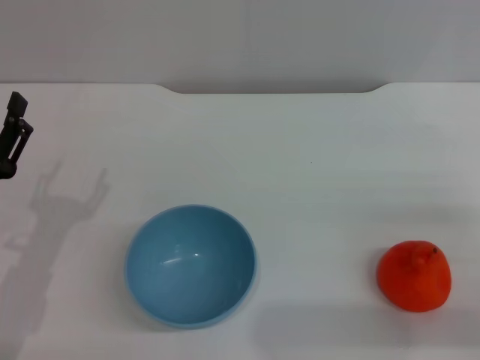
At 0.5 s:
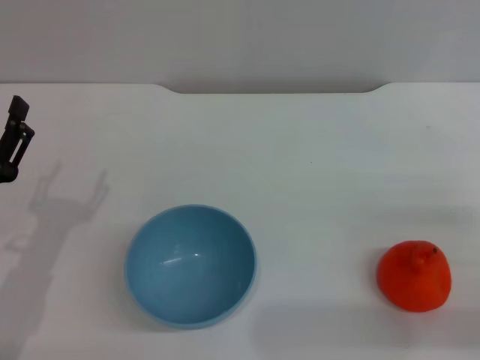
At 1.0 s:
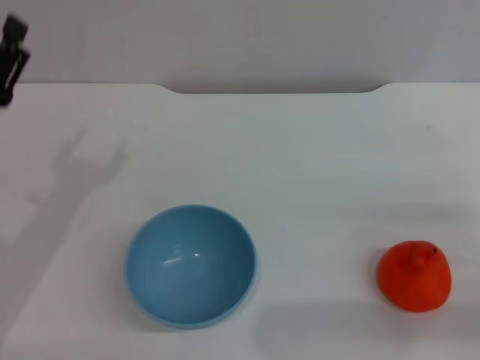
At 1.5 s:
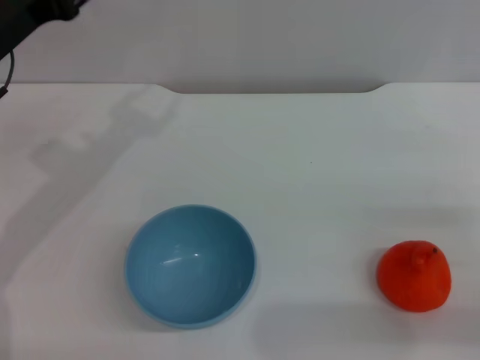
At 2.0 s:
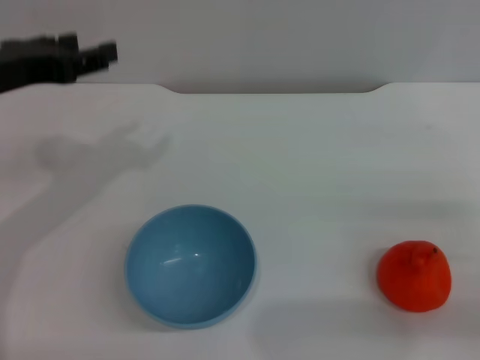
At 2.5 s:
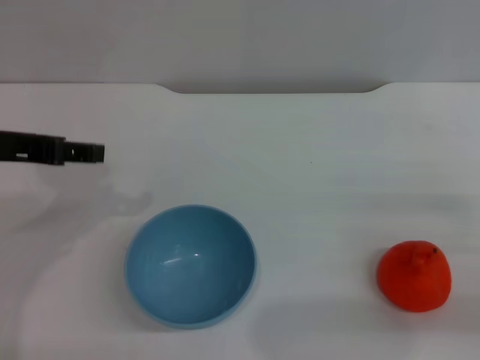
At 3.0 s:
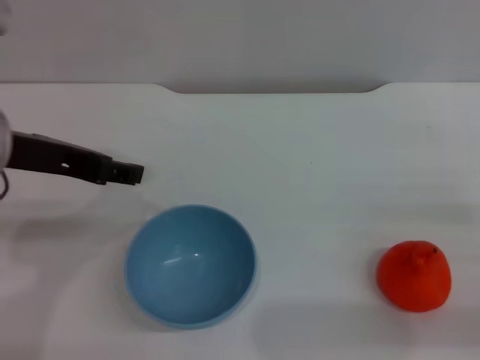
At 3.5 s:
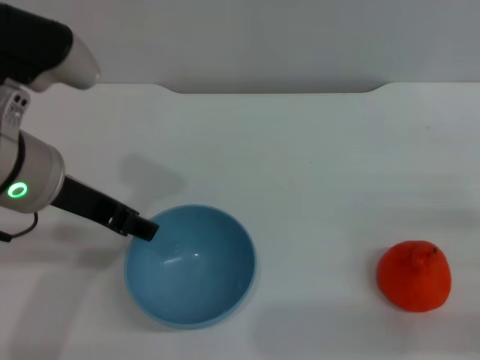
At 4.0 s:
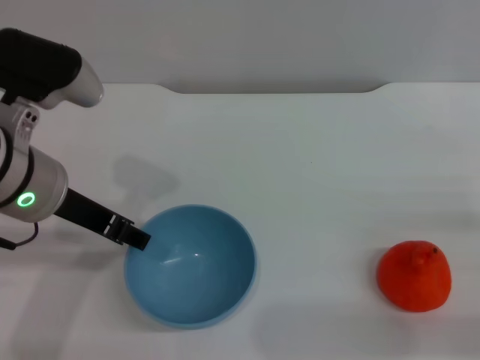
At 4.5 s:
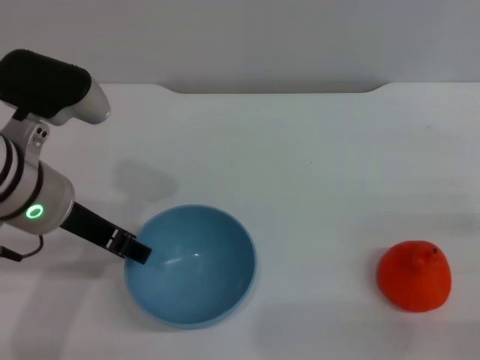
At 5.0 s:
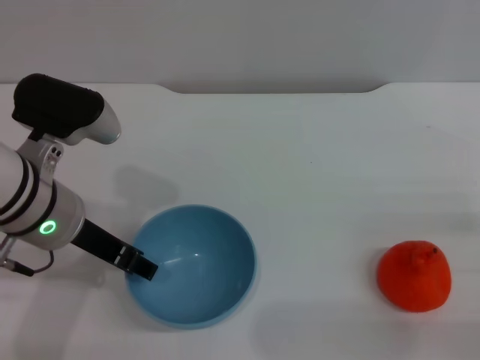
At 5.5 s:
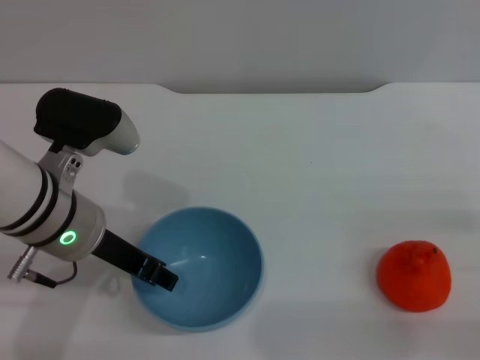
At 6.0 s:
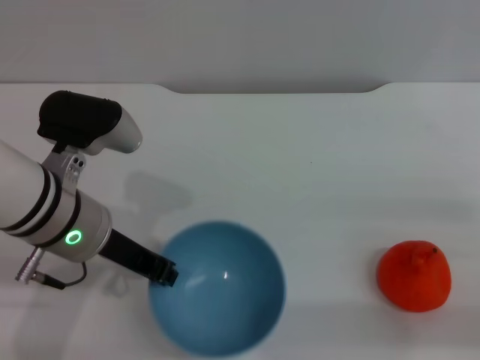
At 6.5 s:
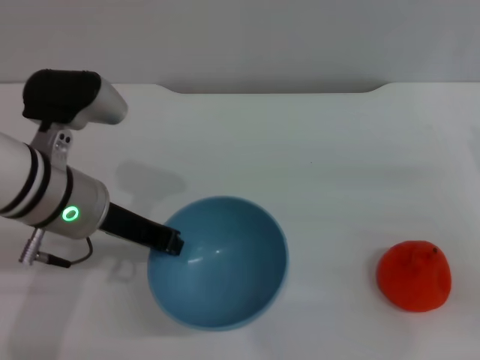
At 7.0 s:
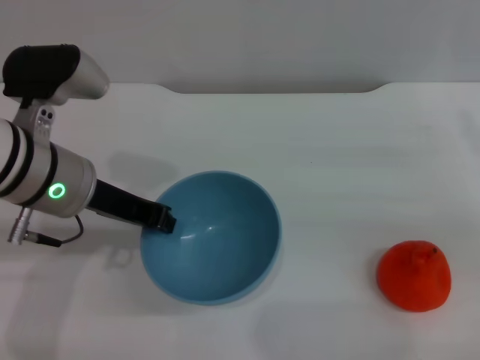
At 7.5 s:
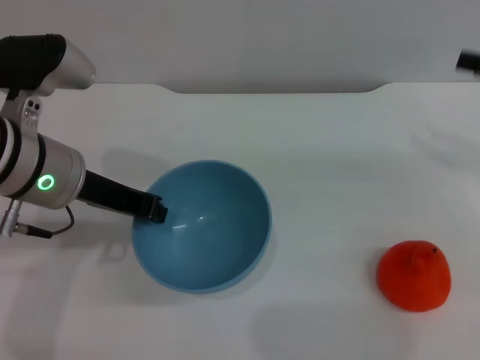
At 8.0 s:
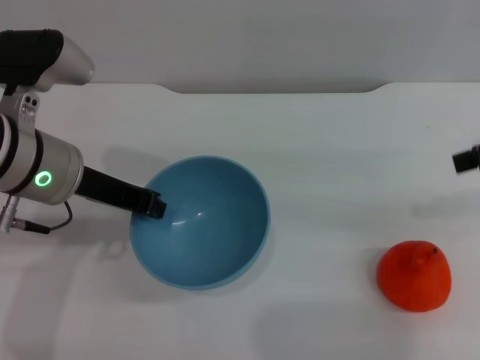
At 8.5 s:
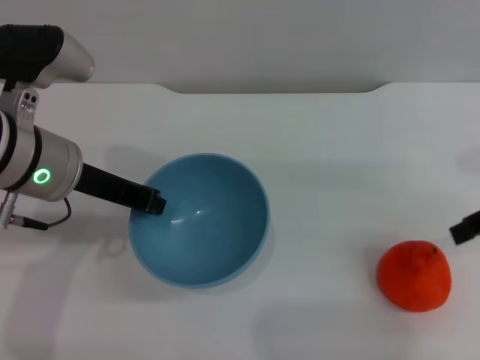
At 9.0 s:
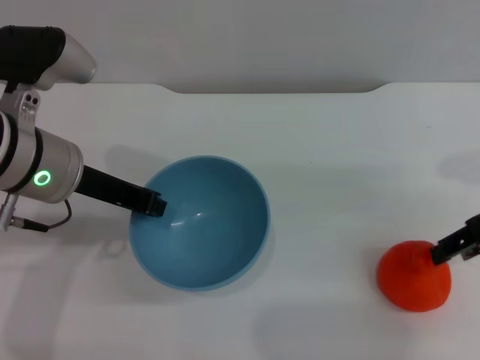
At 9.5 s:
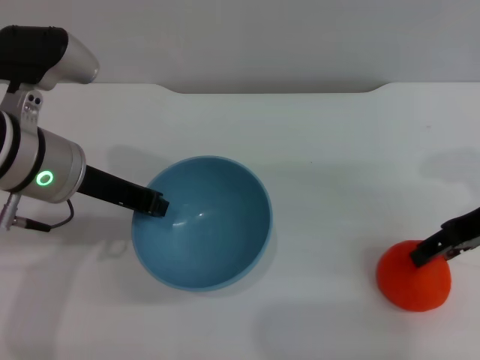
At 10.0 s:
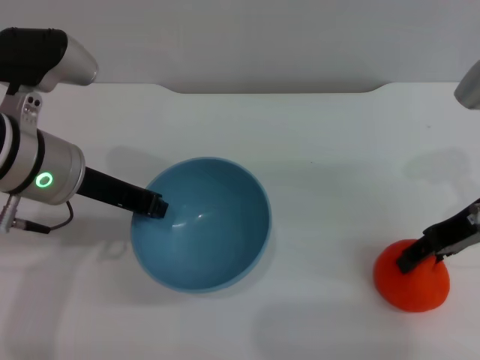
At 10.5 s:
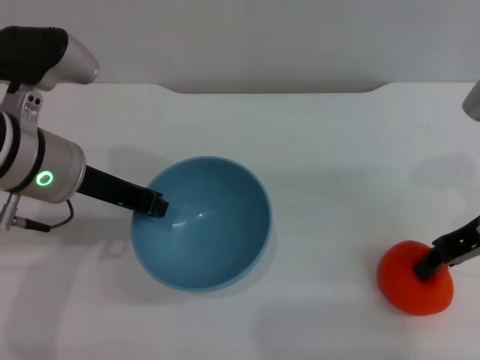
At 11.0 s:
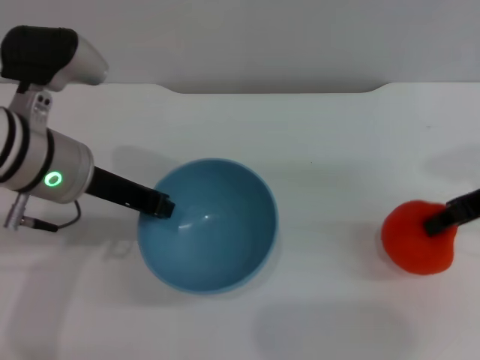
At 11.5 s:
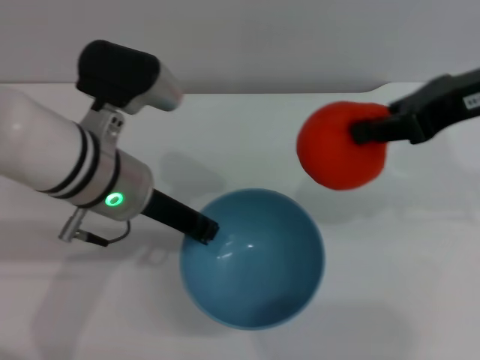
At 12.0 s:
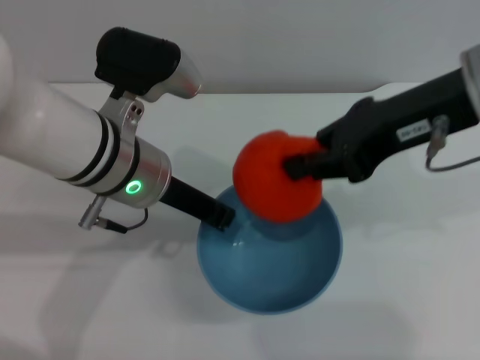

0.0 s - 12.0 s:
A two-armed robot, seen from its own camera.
Task of the whole recording: put the orange into the blue bowl and pour it out repeatedly.
Step, 0.0 s - 6.5 s: Pick up the bowl with the left gripper.
Step, 7.0 s - 11.0 s: Pick up the orange with the right gripper.
0.0 s - 2.0 s: The left gripper travels upward and forward by about 20 cm.
2.0 s - 4.0 s: The left gripper moves to the right, some 10 cm.
4.0 s - 6.0 s: The left gripper shifts by approximately 5 cm, and closes.
6.0 s - 8.0 s: The right gripper goes roughly 20 cm upward and forward.
8.0 s - 10.0 s: The right gripper goes roughly 10 cm downward and to the left.
10.0 s - 12.0 s: The left gripper is displaced to the right by approximately 5 cm, while the right gripper heads upward and to the left, covering approximately 15 cm, and closes its fingers.

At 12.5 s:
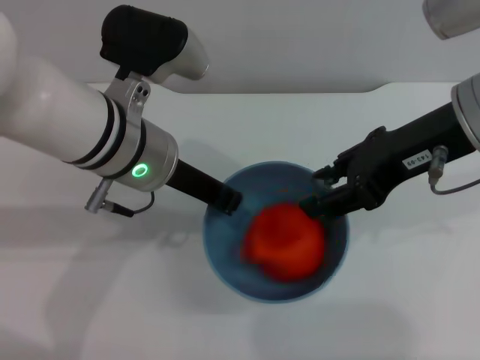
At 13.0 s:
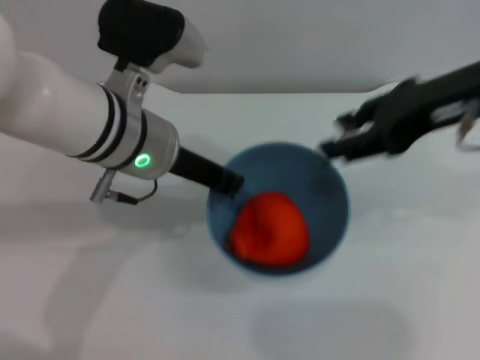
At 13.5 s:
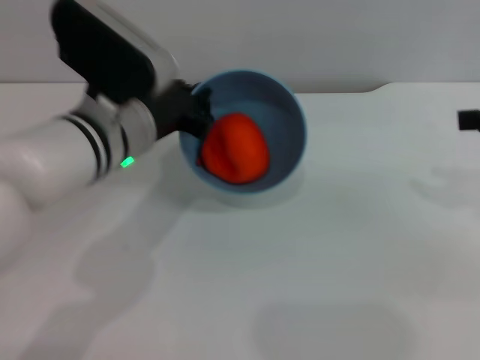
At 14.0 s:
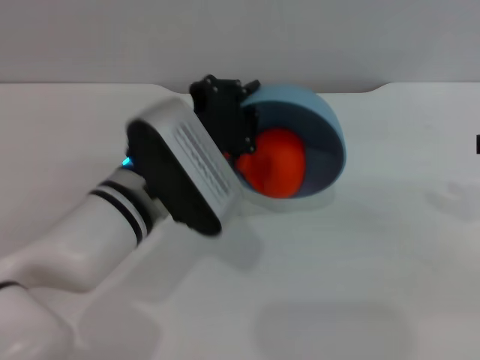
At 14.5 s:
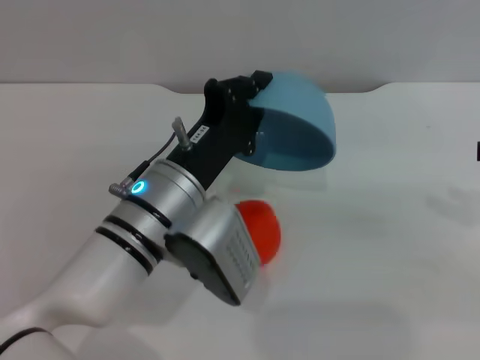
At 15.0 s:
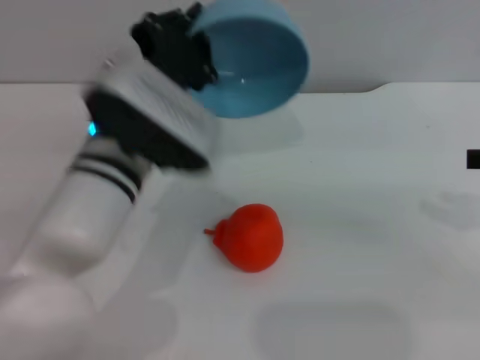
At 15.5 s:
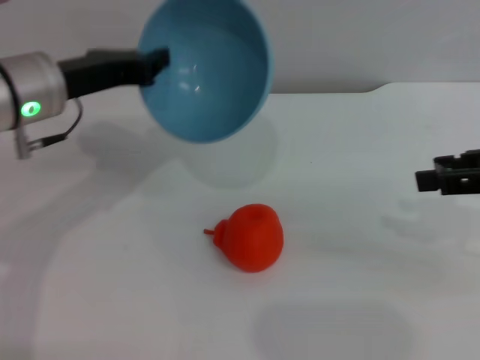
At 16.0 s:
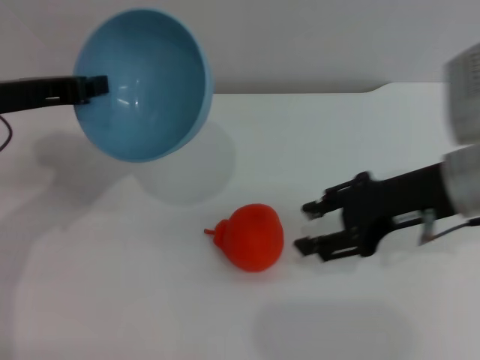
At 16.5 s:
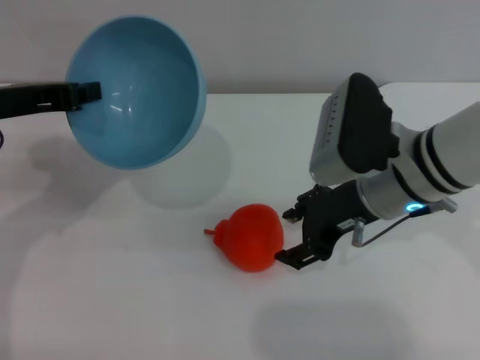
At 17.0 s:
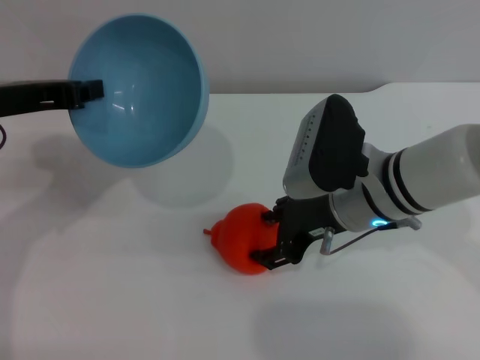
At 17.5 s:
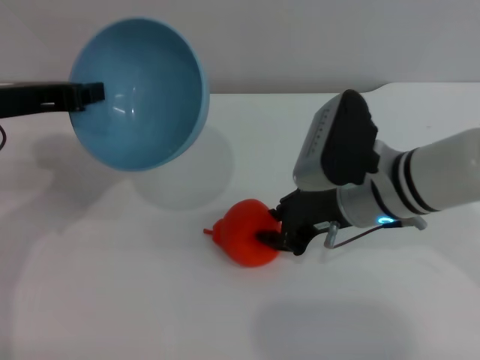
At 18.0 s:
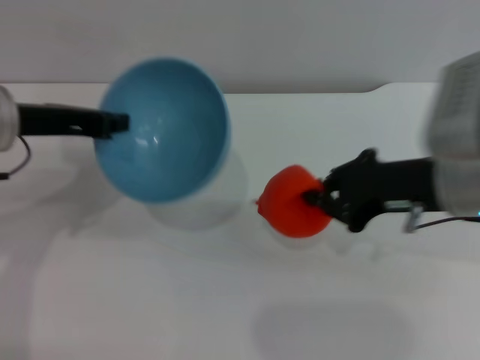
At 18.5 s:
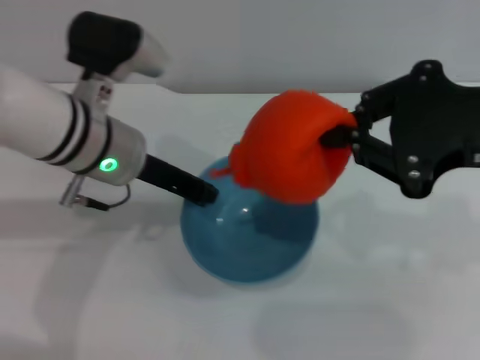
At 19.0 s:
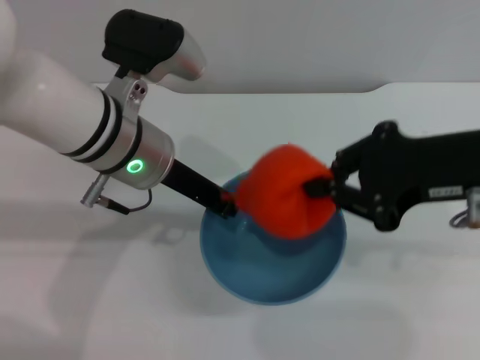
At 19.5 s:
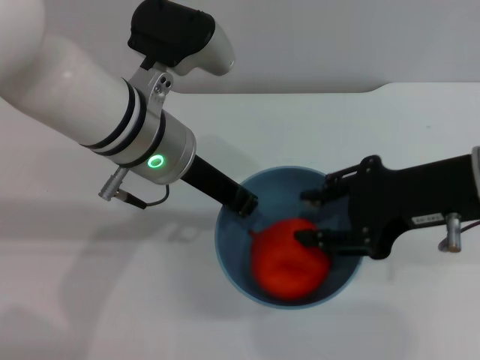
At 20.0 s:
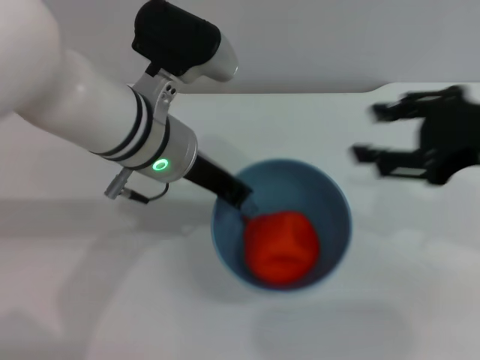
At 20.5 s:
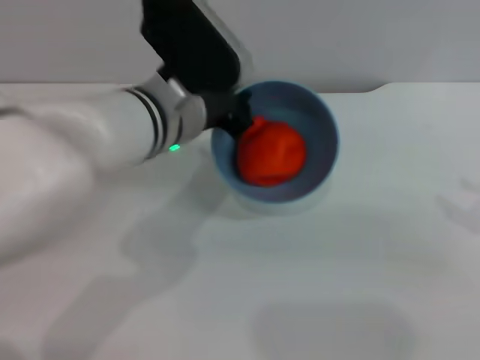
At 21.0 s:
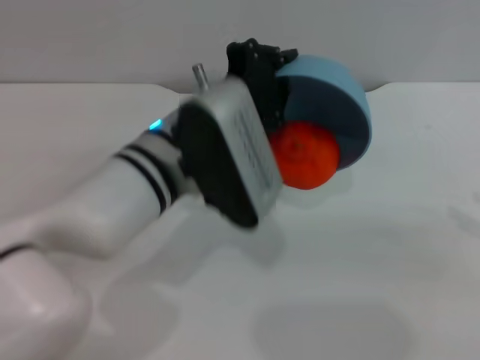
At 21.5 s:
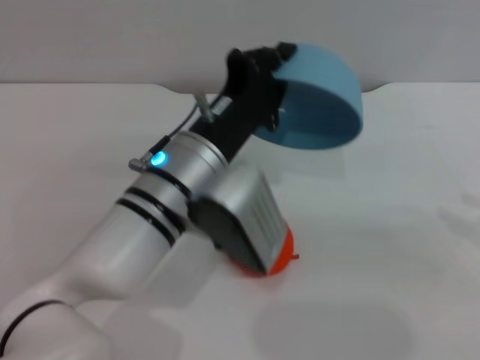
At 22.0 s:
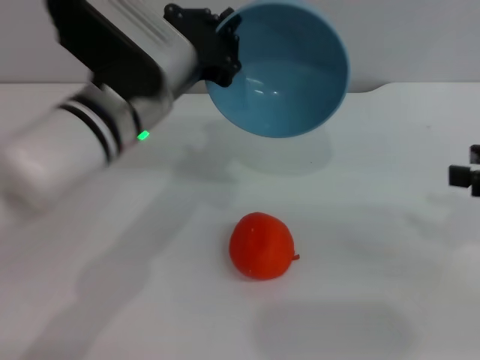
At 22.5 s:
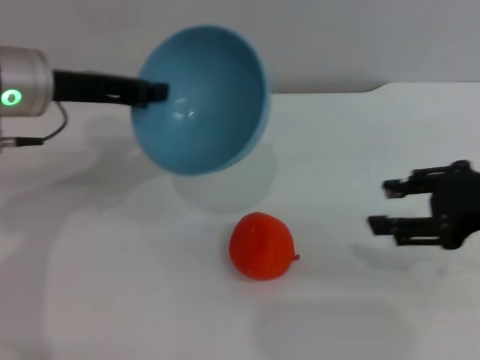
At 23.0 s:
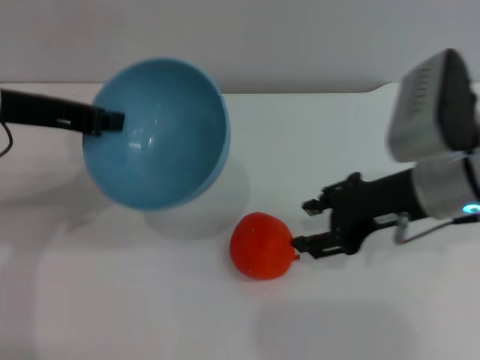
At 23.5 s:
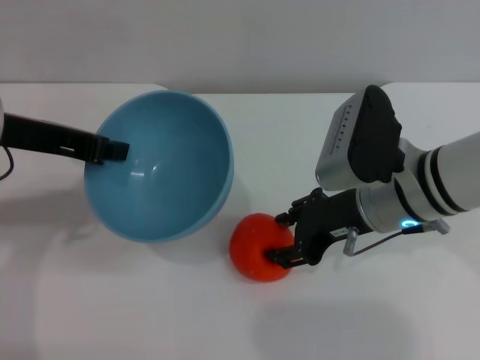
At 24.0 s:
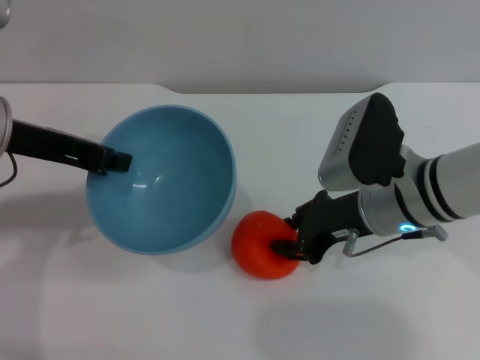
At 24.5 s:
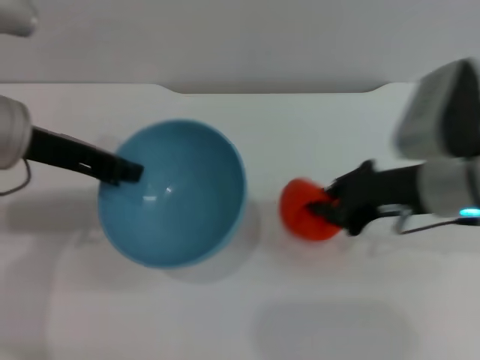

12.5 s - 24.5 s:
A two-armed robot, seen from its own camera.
Task of the whole recording: put the orange into the blue bowl and pour it out repeatedly.
Step, 13.5 s - 14.5 s: Pour the orange out of the bowl.
Step, 15.0 s - 18.0 s: Pick up the orange with the right gripper.
Step, 18.5 s - 19.5 s: Place the orange into the bowl.
Step, 20.0 s - 21.0 s: Pour the orange out of the bowl.
12.5 s - 14.5 s: The right gripper moves to the right, about 15 cm. The left gripper goes some 10 cm downward and backward.
14.5 s - 16.5 s: The left gripper goes roughly 20 cm to the left and upward, while the right gripper shifts some 25 cm to the left and downward.
16.5 s - 18.5 s: The right gripper travels upward, backward and to the right by roughly 20 cm, and closes. Meanwhile the left gripper shifts some 10 cm to the right.
18.5 s - 20.5 s: The left gripper shifts roughly 5 cm to the right, while the right gripper moves to the right and downward, about 15 cm, and opens up.
20.5 s - 22.5 s: The left gripper goes some 15 cm to the left, while the right gripper travels to the left by roughly 10 cm.
22.5 s - 24.5 s: The right gripper moves to the left, some 5 cm, and closes up.

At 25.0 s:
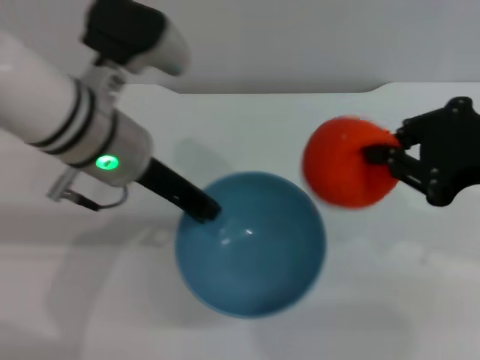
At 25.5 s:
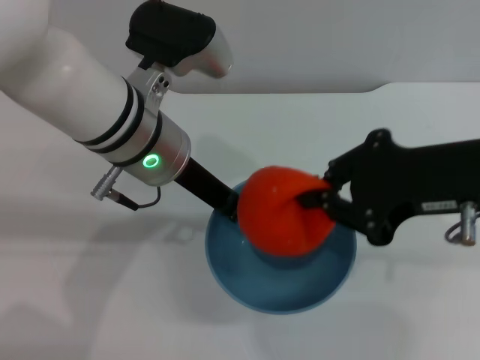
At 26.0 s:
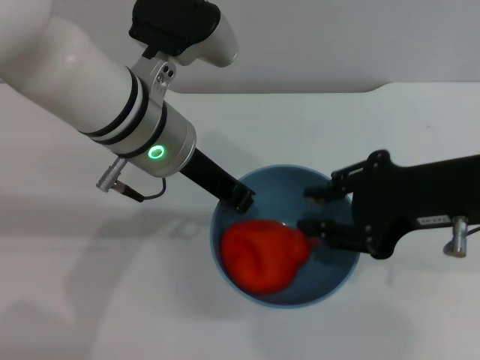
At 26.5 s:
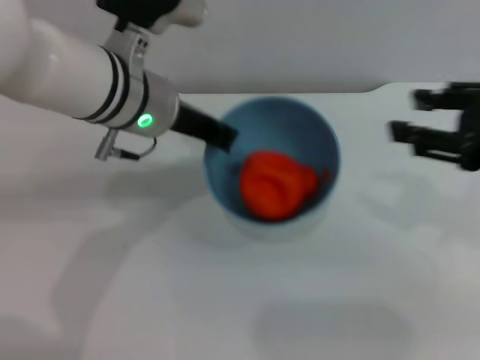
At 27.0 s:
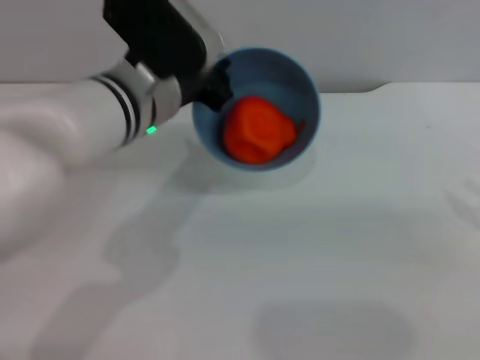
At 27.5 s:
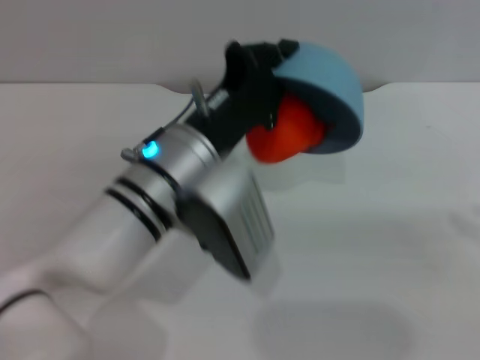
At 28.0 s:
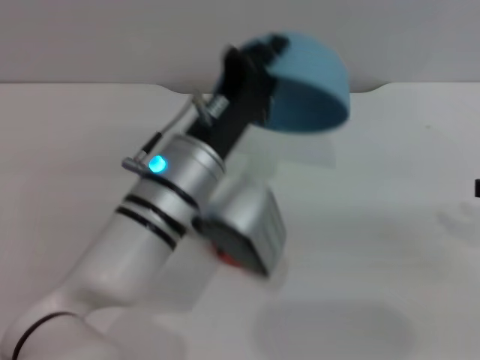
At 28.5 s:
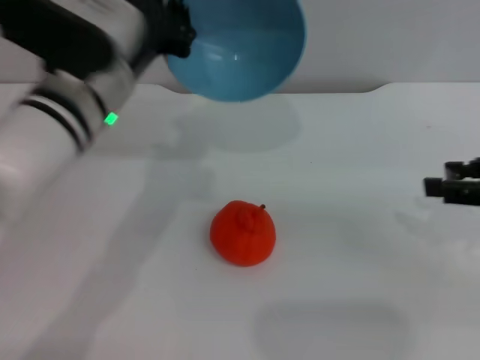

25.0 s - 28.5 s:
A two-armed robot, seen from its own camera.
Task of the whole recording: put the orange into the blue bowl and pour it out repeatedly.
Step, 25.0 s - 26.0 s: Place the orange into the bowl.
Step, 26.5 s - 28.0 s: Pour the orange out of the bowl.
25.0 s - 27.0 s: The right gripper shifts roughly 10 cm to the right, and opens.
27.0 s - 28.5 s: The right gripper ends up about 5 cm from where it was.
